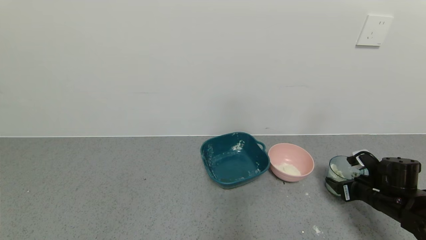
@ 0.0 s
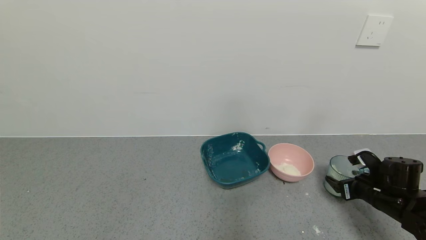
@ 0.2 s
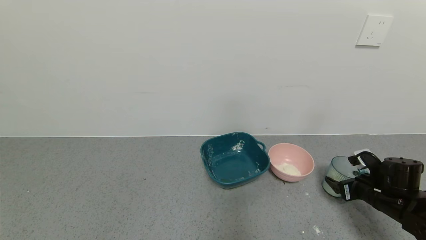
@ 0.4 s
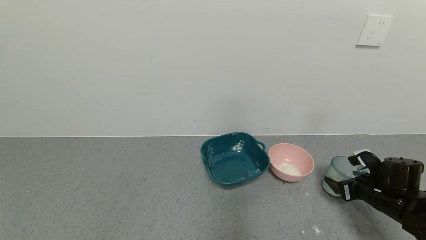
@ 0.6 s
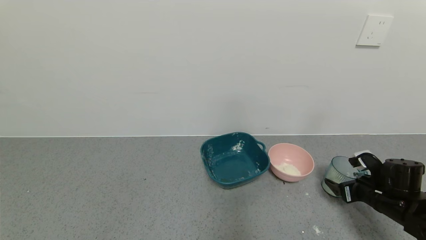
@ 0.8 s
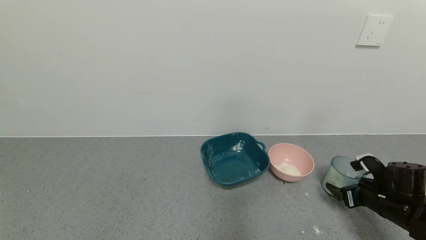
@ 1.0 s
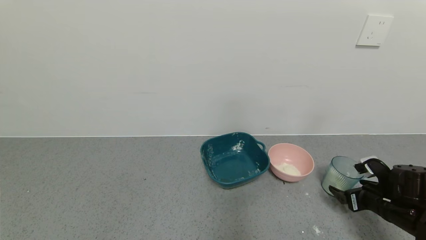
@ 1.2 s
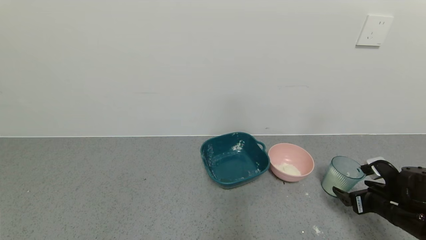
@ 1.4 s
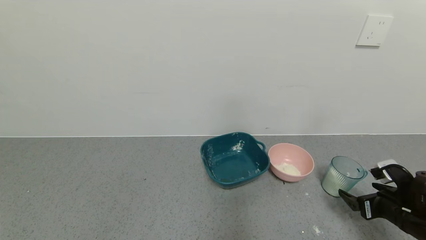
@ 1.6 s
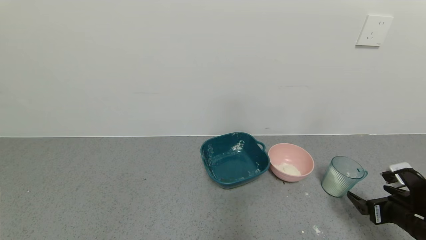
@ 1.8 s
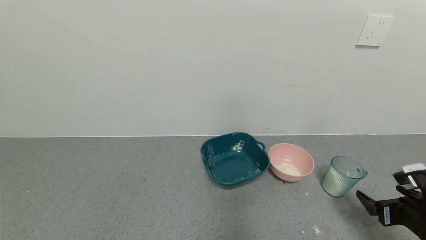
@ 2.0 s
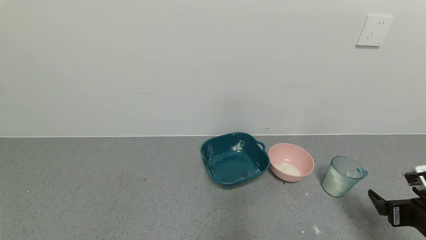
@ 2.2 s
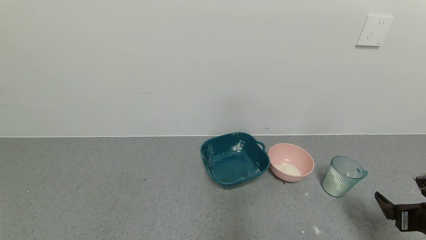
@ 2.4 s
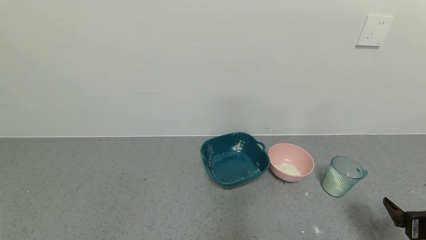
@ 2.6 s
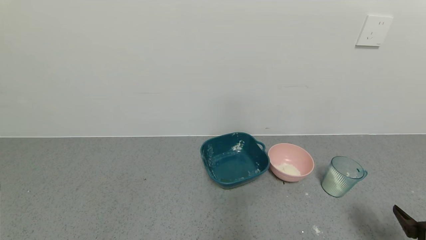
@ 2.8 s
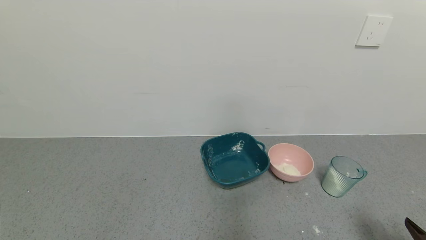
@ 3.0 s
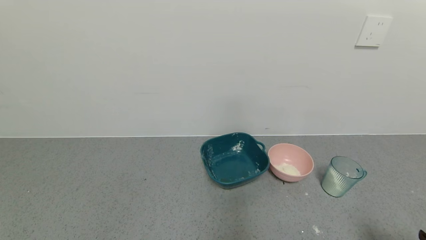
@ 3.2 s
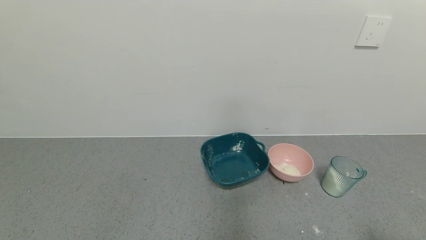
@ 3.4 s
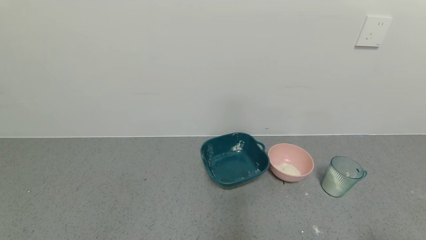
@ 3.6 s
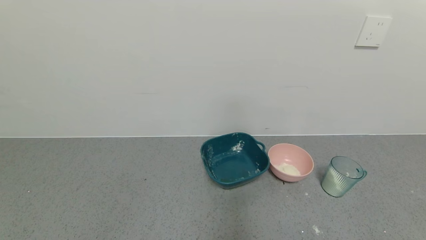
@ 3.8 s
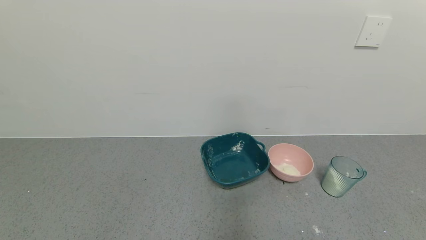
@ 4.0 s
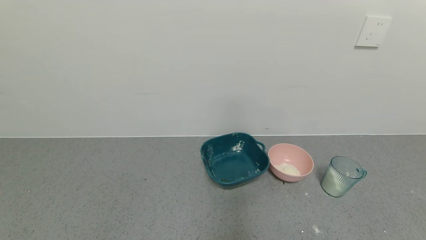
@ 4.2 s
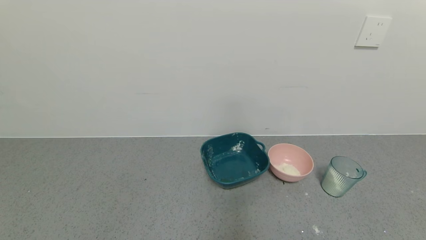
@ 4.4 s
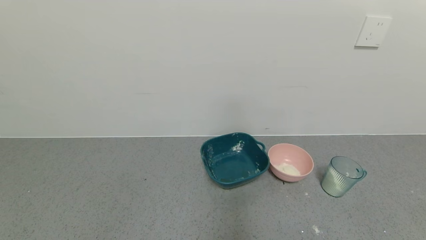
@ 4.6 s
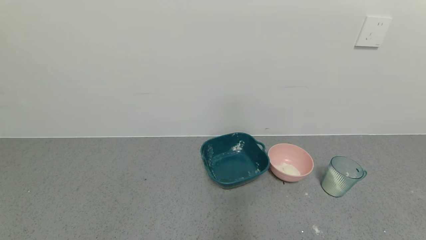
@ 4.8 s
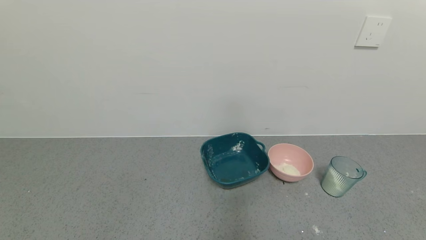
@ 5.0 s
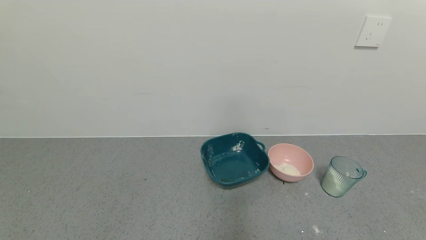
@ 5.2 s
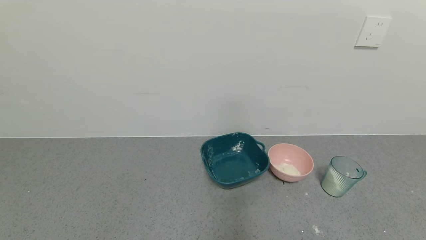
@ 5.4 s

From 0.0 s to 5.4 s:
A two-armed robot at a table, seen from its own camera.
Task of the whole recording: use a gripper to pick up the cup and pour the powder into a bowl or tray.
From 0.0 s to 1.4 s: The right gripper opens up.
From 1.4 s to 2.8 s: The right gripper heads backward, covering roughly 15 cm.
From 2.8 s to 4.0 s: The right gripper heads backward, covering some 15 cm.
